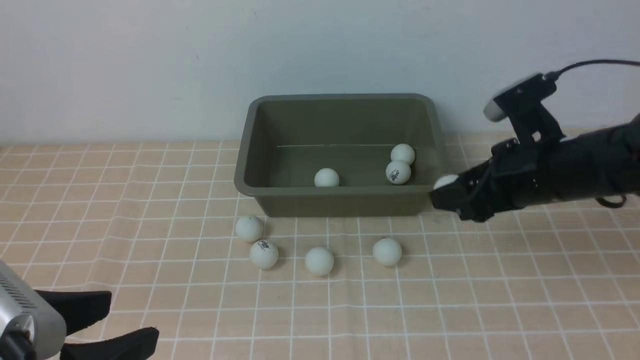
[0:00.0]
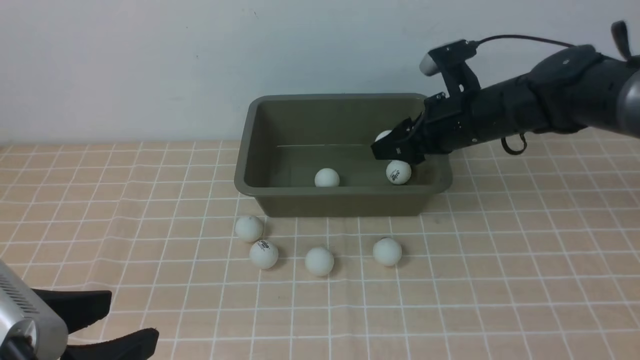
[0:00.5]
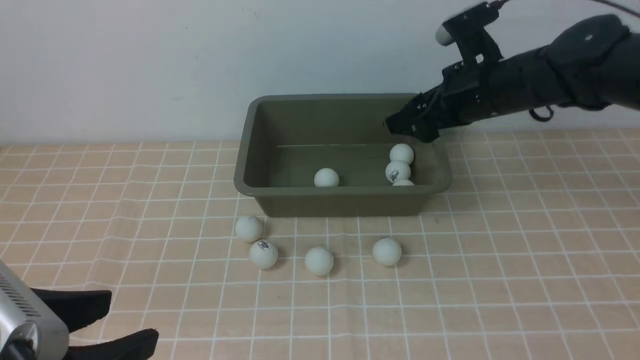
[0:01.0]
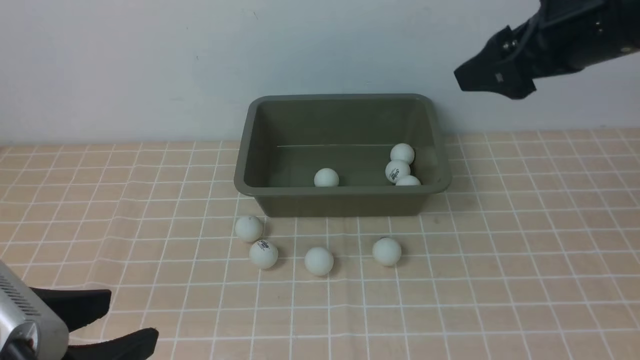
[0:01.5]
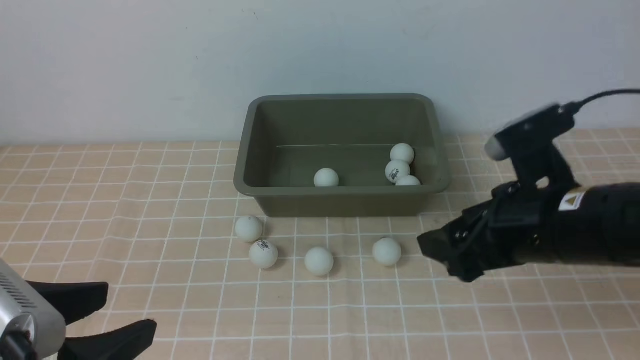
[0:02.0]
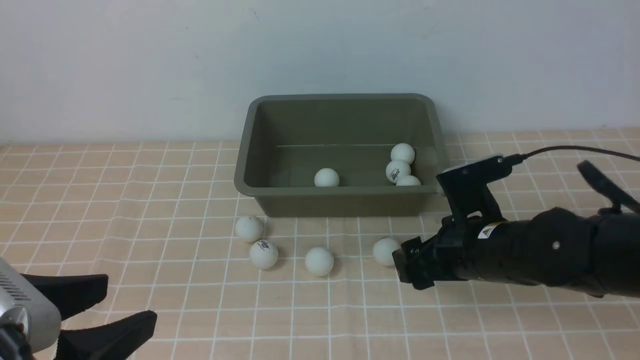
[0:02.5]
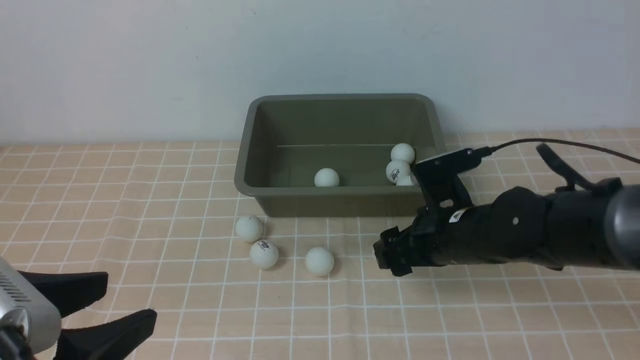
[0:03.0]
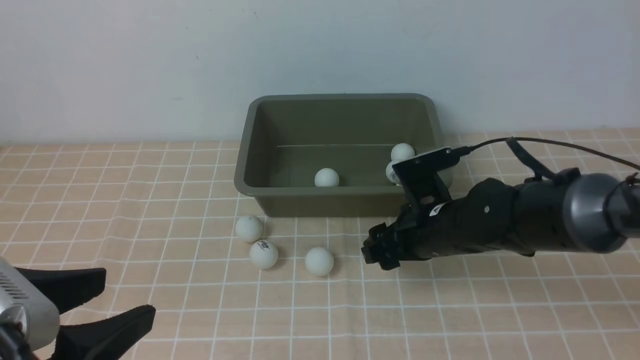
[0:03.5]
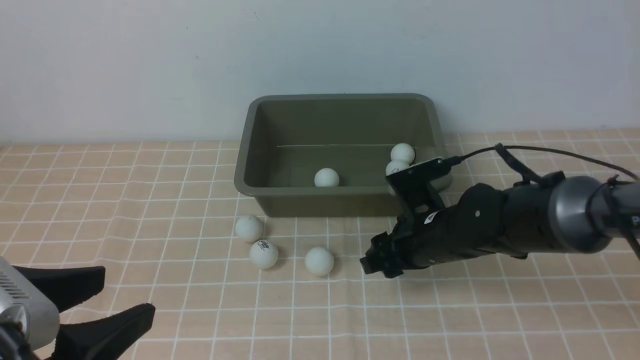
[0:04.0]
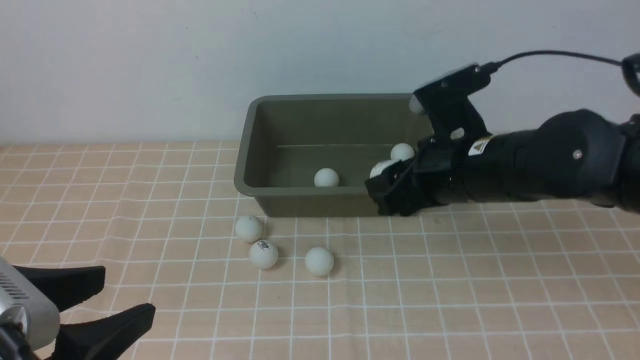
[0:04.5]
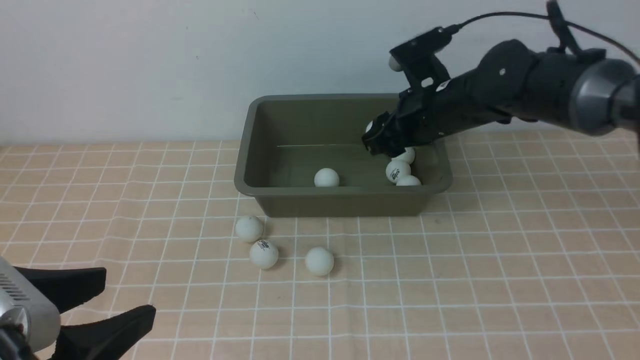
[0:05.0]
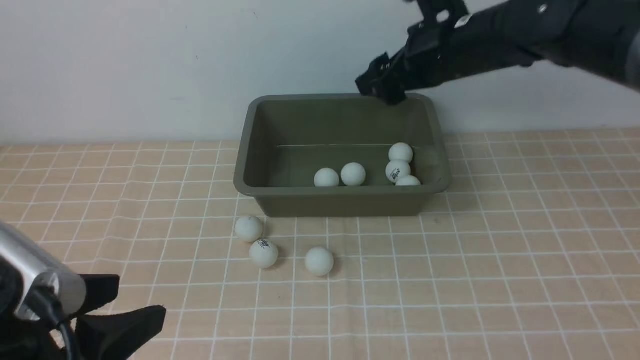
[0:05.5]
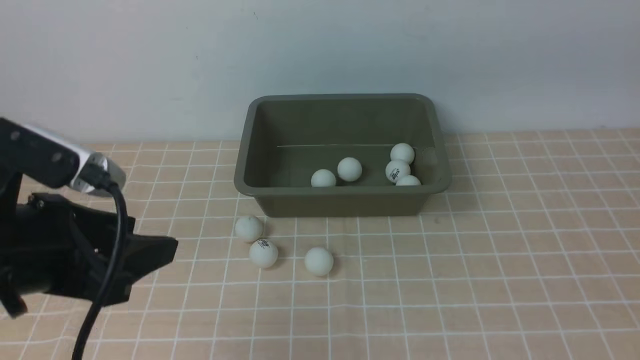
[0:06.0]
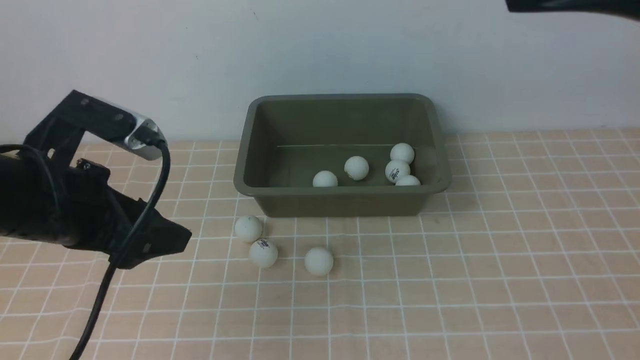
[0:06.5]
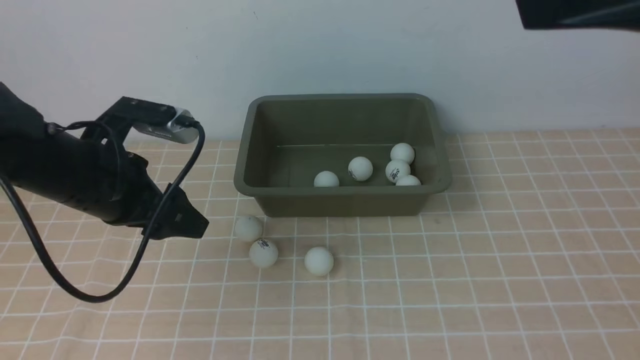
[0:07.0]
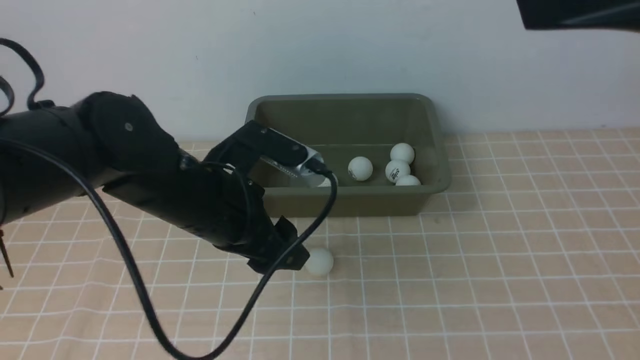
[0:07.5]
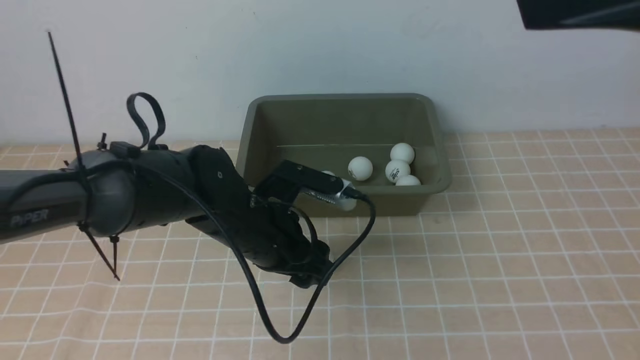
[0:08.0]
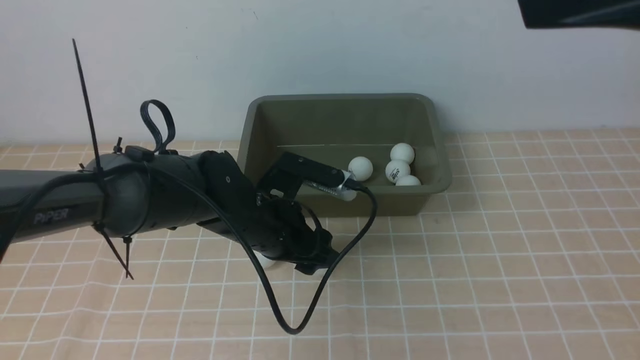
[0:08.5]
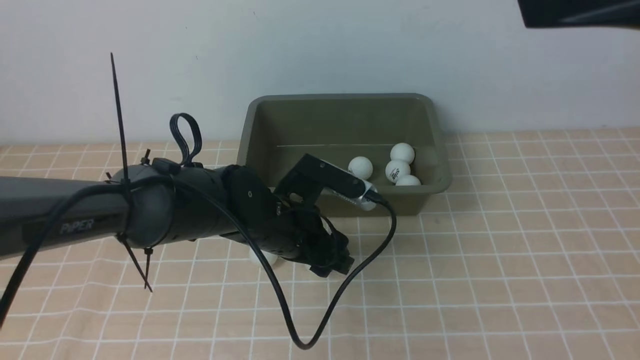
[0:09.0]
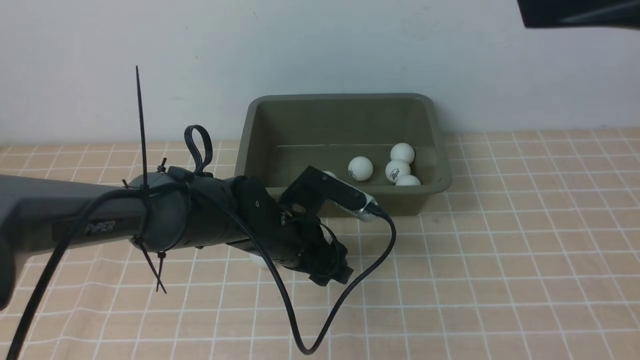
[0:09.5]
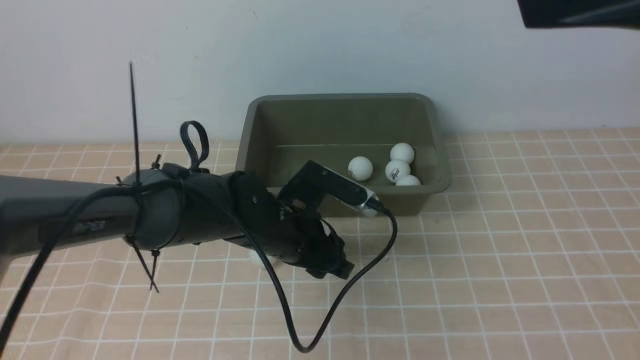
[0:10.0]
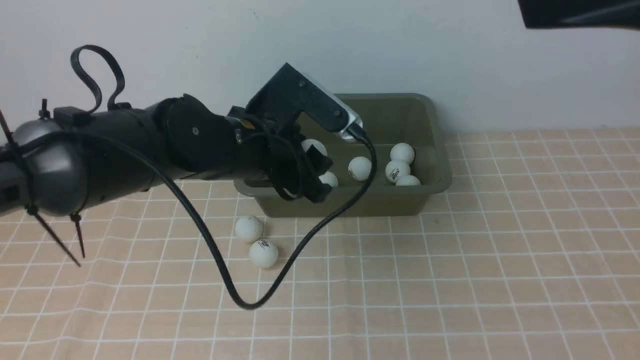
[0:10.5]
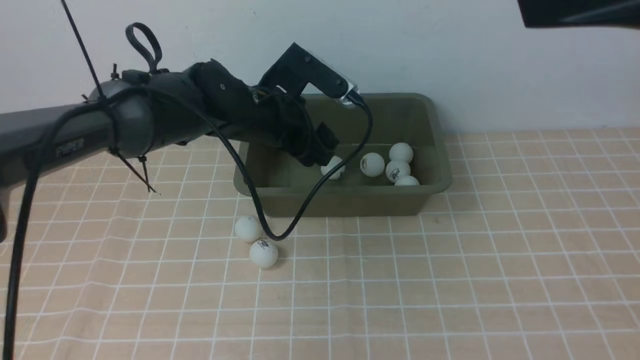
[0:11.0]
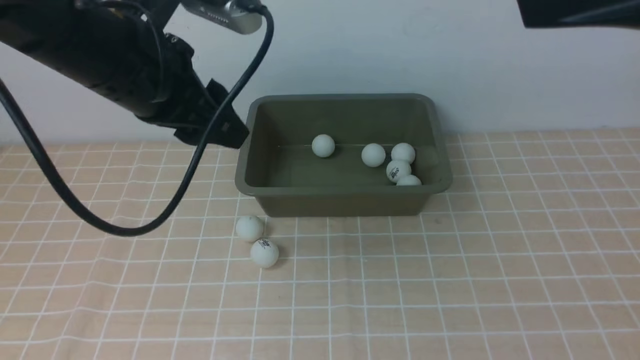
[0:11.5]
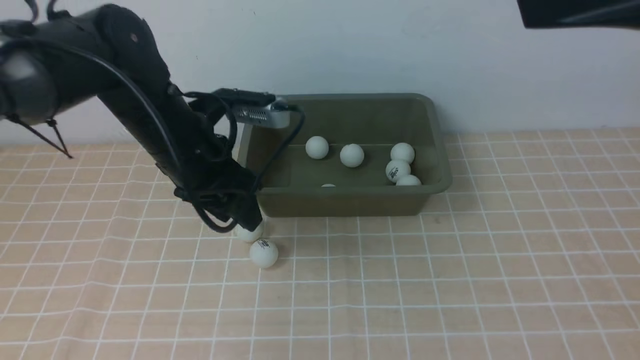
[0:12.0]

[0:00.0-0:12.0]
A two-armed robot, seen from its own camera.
Step, 0:01.5 to 0:04.0: use the right arm to clamp the table tennis ball closest to it.
Step, 0:04.5 to 0:05.0: use the right arm to put the table tennis ball into the box.
Step, 0:05.5 to 0:10.0: use the left arm to clamp the table tennis ball closest to it.
Step, 0:10.5 to 0:11.0: use the left arm to put the table tennis ball into the box.
0:00.0 to 0:02.0: The right gripper heads backward, covering approximately 10 cm, and opens.
0:02.0 to 0:04.0: The right gripper goes some 15 cm downward, forward and to the left, and closes its fingers.
0:04.0 to 0:06.0: The left gripper travels forward by some 10 cm. Meanwhile the right gripper travels upward by roughly 35 cm, and opens its fingers.
0:06.0 to 0:08.0: The left gripper goes about 25 cm to the right, forward and downward, while the right gripper goes some 10 cm backward.
0:08.0 to 0:10.0: The left gripper closes.
0:10.0 to 0:12.0: The left gripper shifts approximately 10 cm to the left and upward, and opens, then closes once more.

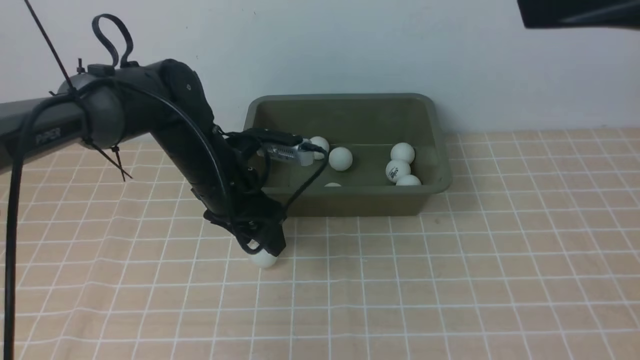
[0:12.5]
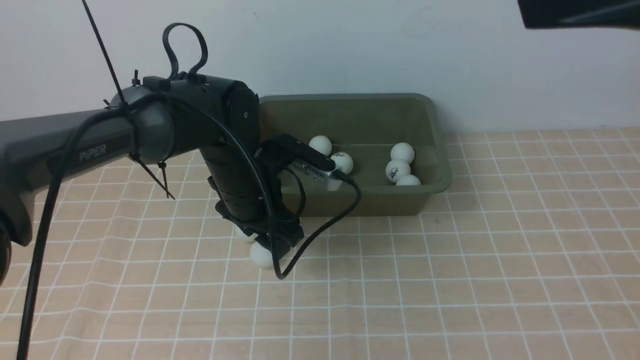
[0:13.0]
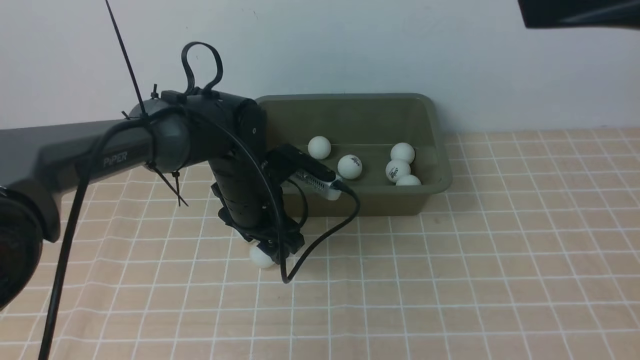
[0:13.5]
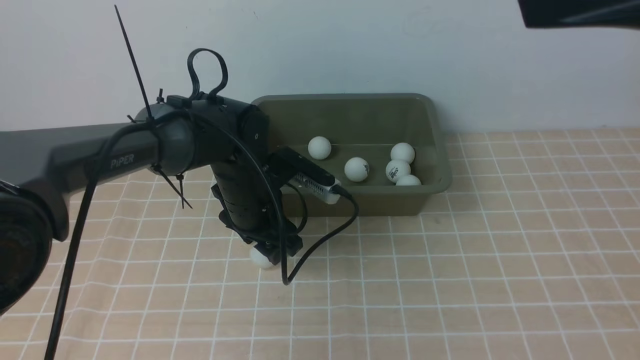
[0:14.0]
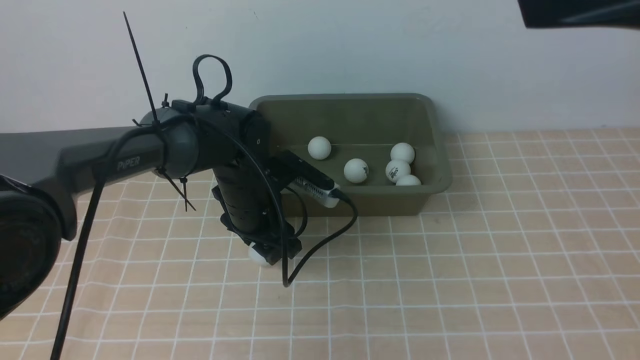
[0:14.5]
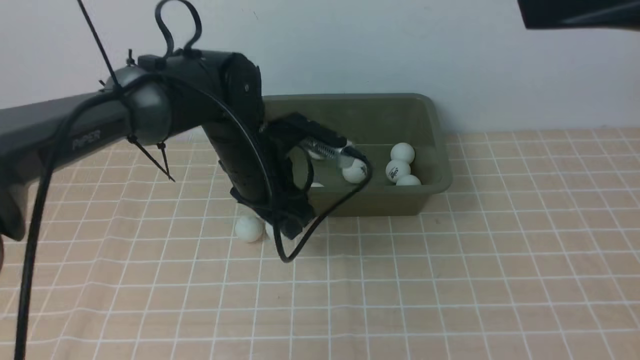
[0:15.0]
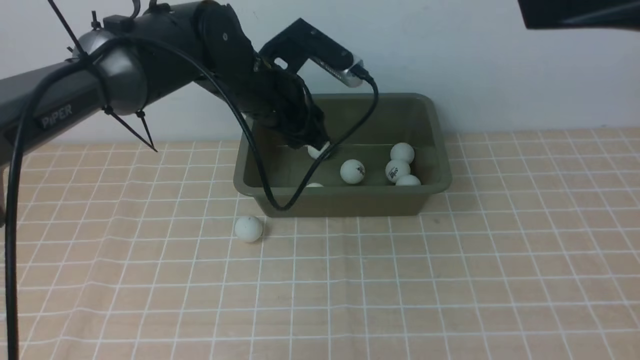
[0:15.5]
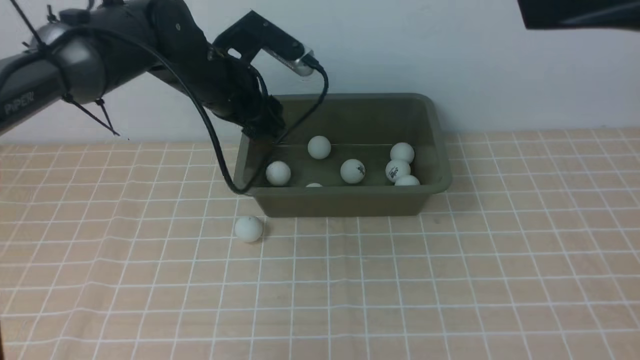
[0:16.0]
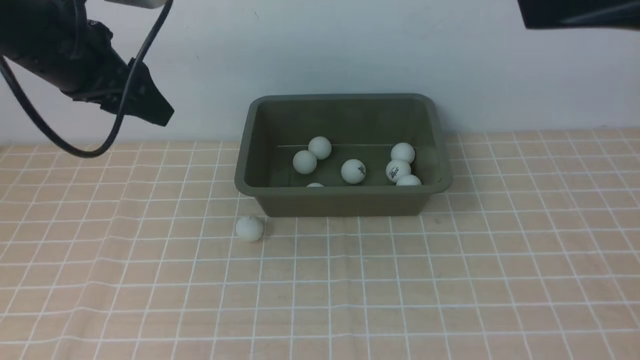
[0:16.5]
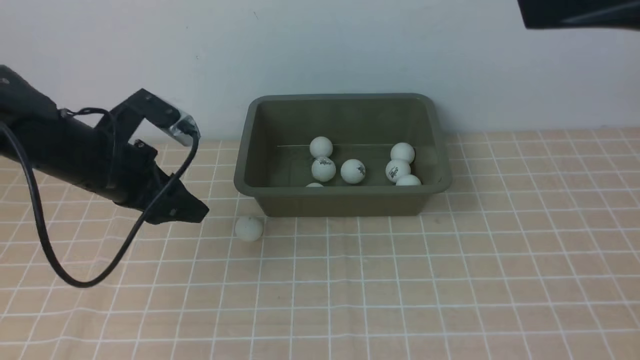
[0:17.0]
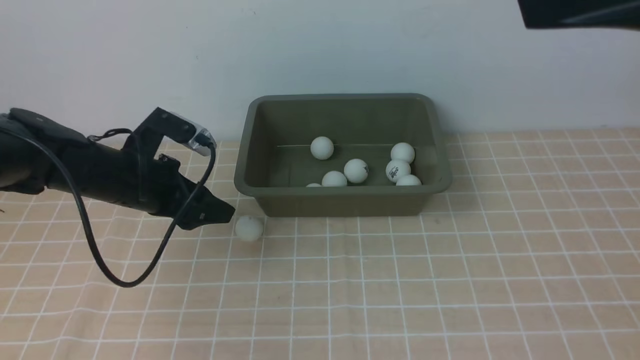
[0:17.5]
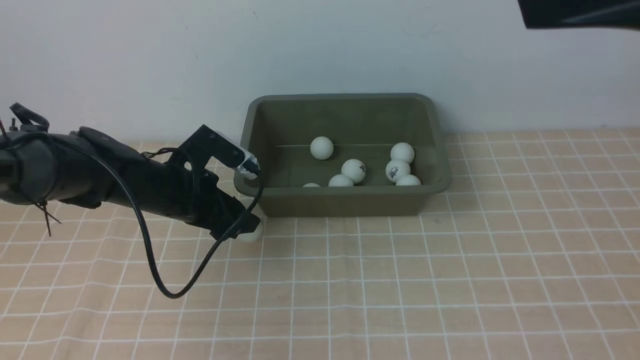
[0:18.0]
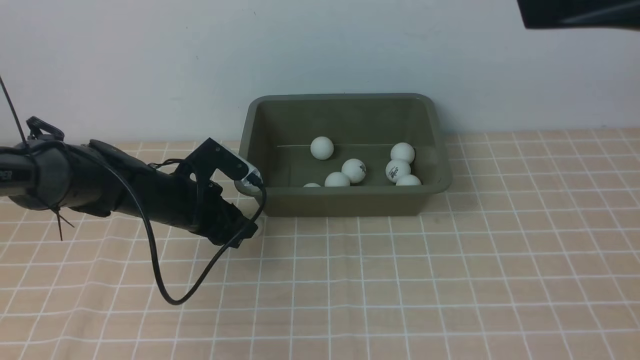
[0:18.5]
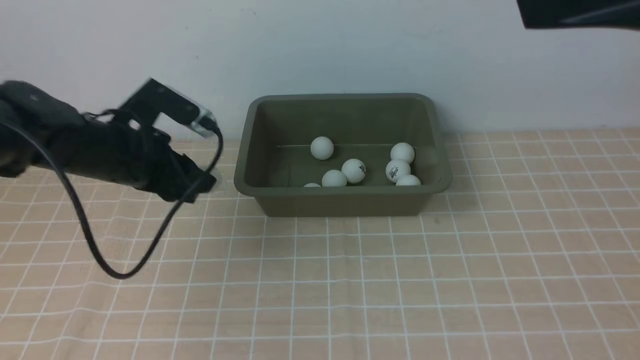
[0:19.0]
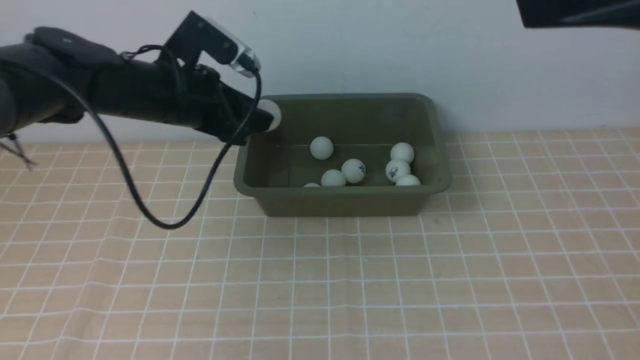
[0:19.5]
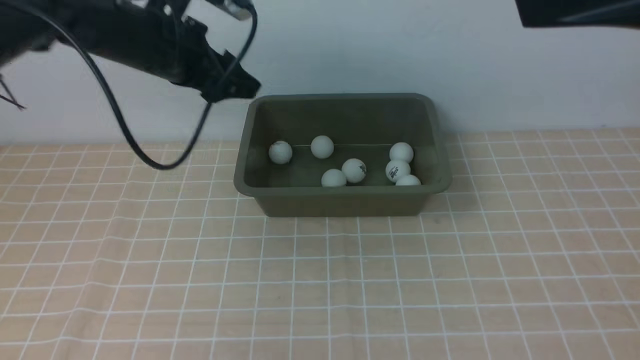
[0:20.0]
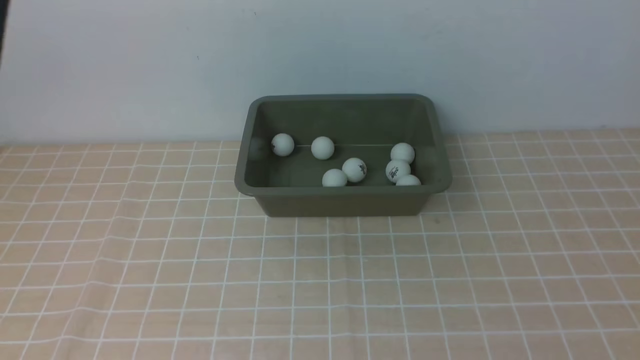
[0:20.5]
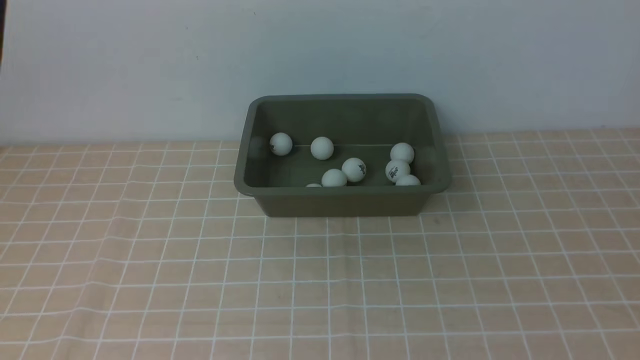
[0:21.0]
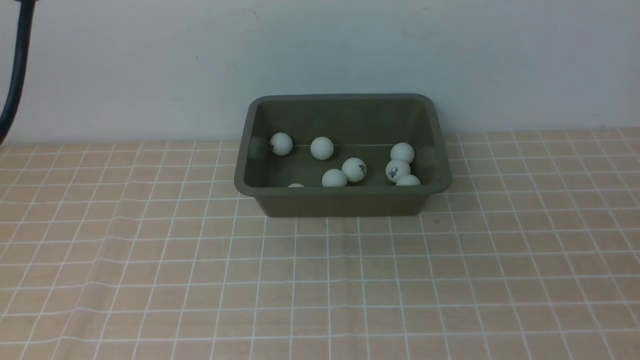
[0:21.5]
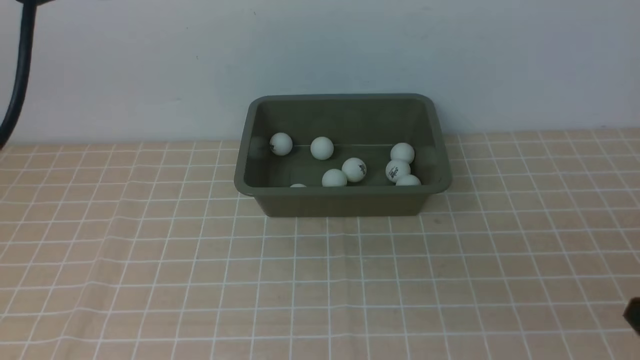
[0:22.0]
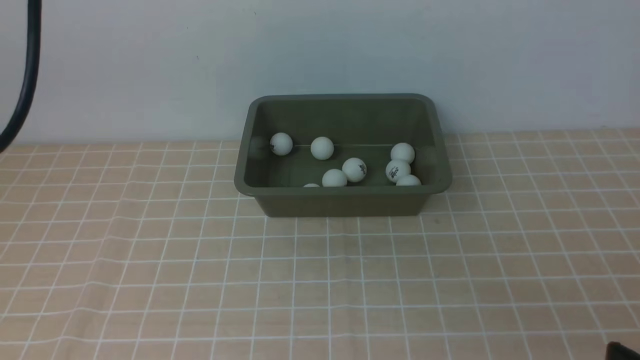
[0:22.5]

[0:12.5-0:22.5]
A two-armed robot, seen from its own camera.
Step, 0:12.5 to 0:15.0: use the left arm to clamp the table tennis ball closest to it.
Step, 0:15.5 to 0:16.0: use the left arm to put the table tennis ball into the box.
Step, 0:16.5 to 0:19.0: use the left arm to clamp the table tennis ball closest to it.
Step, 0:19.5 to 0:20.0: use the left arm to put the table tennis ball into the box.
0:12.5 to 0:14.5: The left gripper moves roughly 5 cm, and closes up.
0:14.5 to 0:16.5: The left gripper heads upward and to the left, covering about 25 cm.
0:16.5 to 0:18.5: The left gripper moves downward, about 20 cm, and closes.
0:18.5 to 0:20.5: The right gripper heads backward, covering approximately 5 cm. The left gripper shifts some 35 cm upward, and opens, then closes once more.
0:20.5 to 0:22.5: The right gripper moves downward, some 30 cm.
